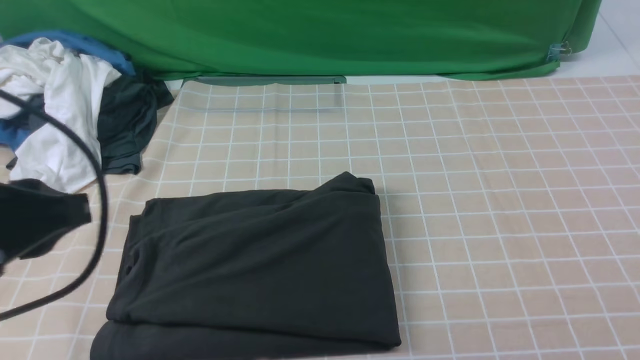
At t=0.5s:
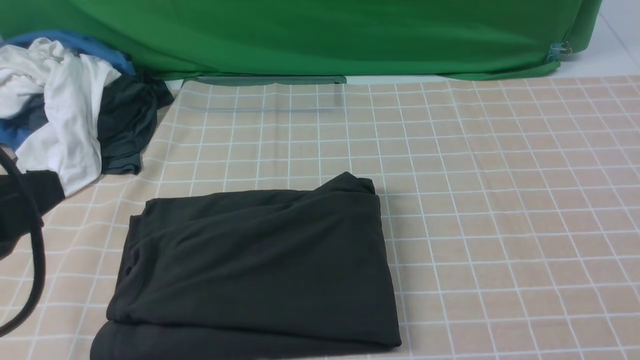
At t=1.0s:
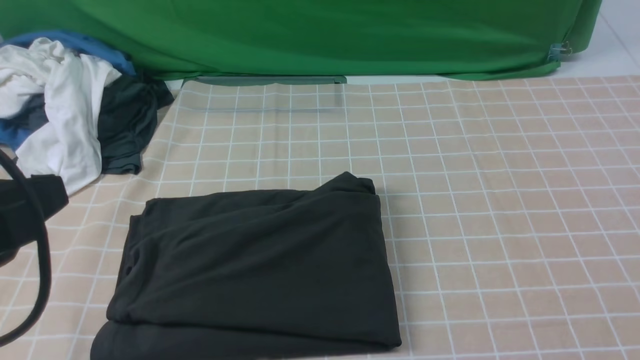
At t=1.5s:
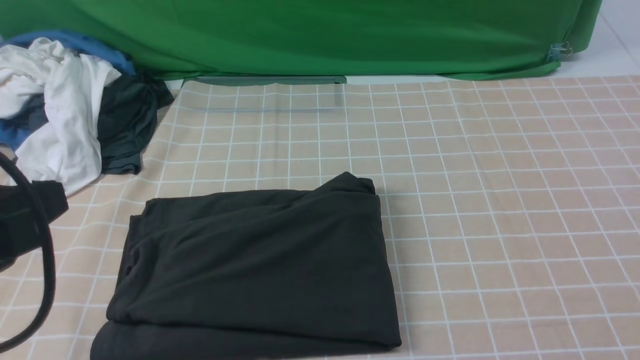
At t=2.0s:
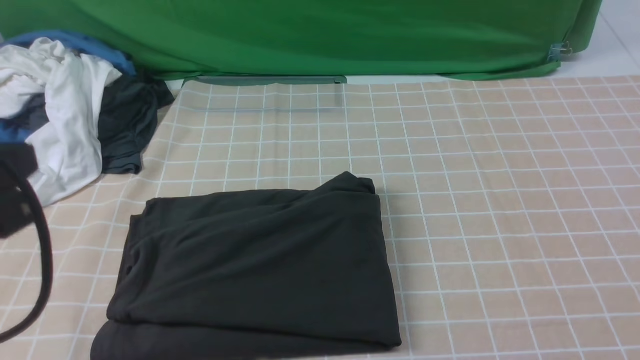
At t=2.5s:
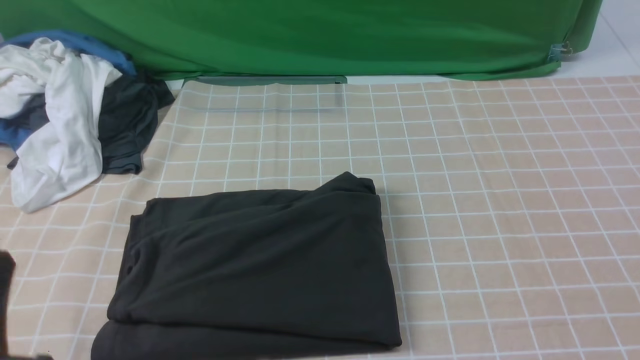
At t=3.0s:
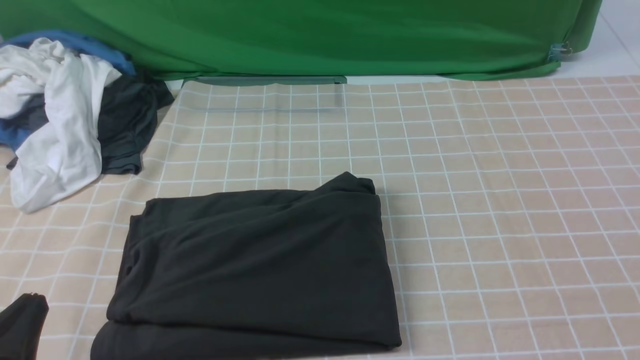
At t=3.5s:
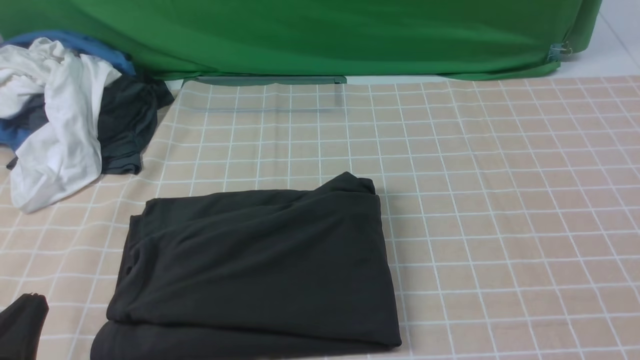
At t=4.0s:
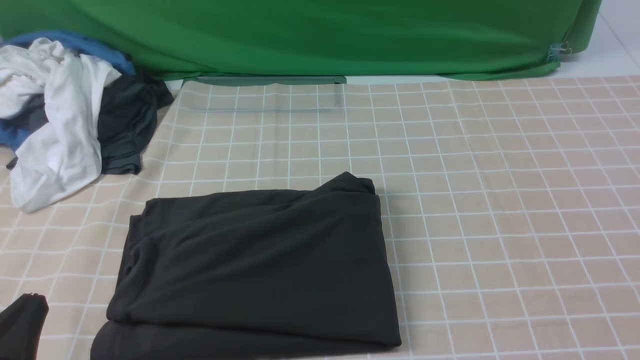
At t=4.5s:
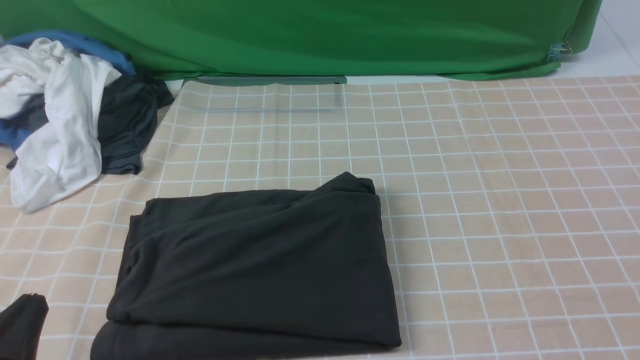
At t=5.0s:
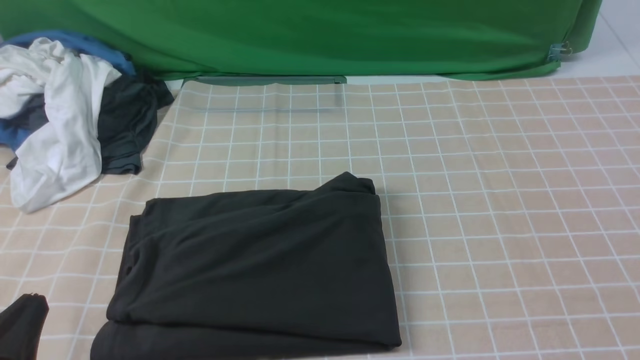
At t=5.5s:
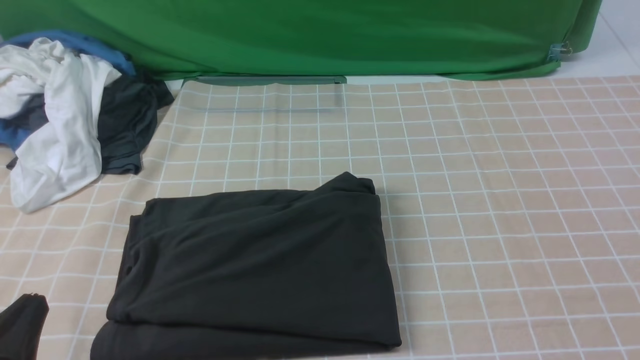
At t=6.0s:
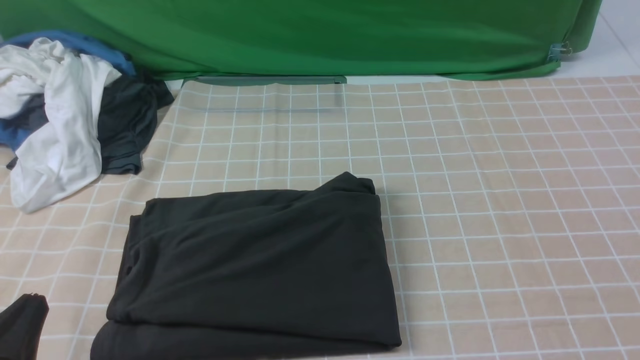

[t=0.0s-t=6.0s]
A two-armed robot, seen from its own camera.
t=0.0s to t=2.0s: The left gripper moves some 5 cm.
t=2.0s to t=4.0s: The left gripper heads downward, covering some 15 cm.
